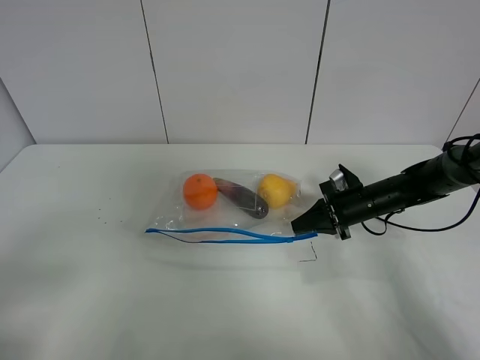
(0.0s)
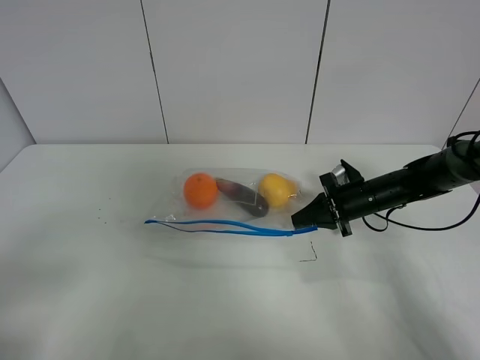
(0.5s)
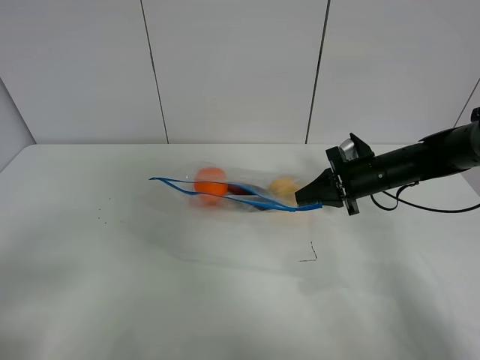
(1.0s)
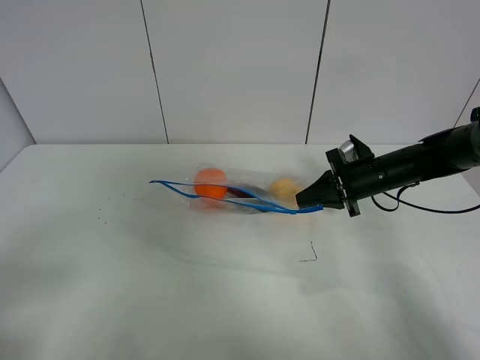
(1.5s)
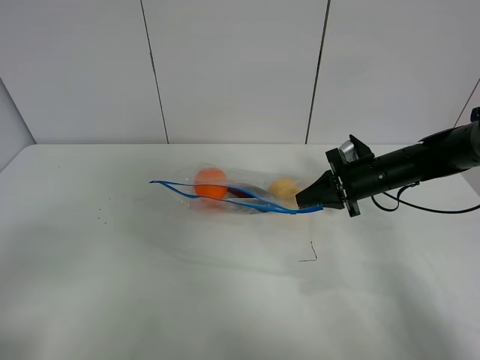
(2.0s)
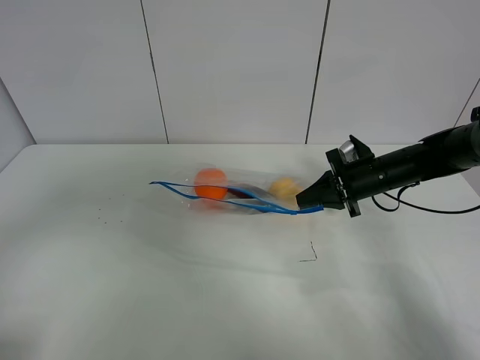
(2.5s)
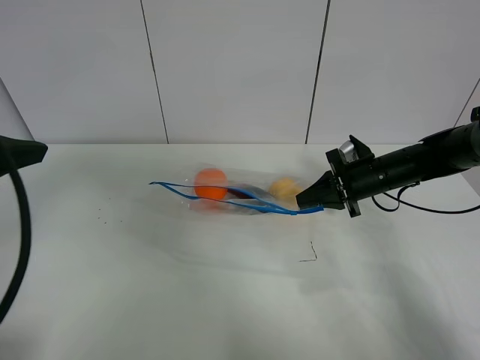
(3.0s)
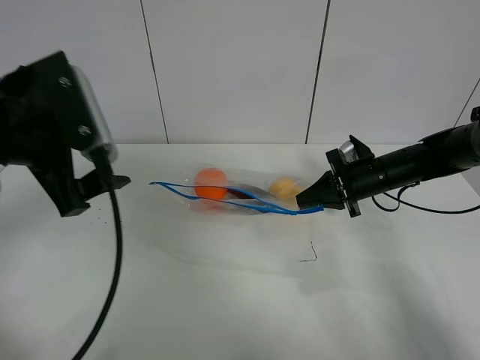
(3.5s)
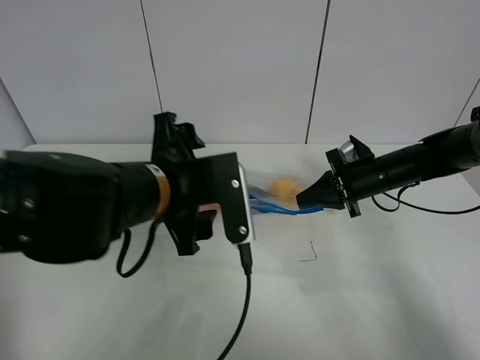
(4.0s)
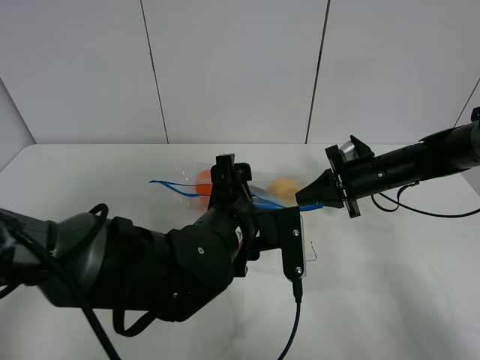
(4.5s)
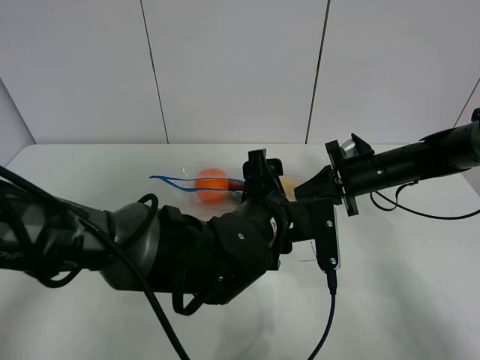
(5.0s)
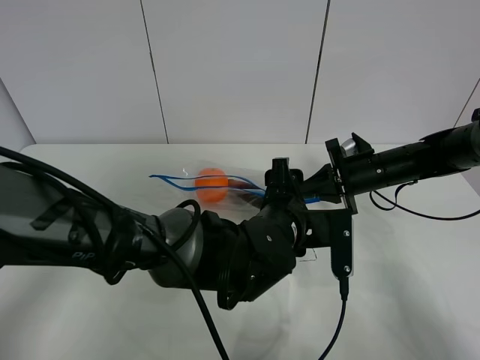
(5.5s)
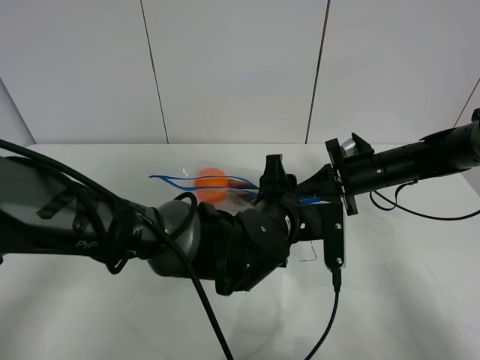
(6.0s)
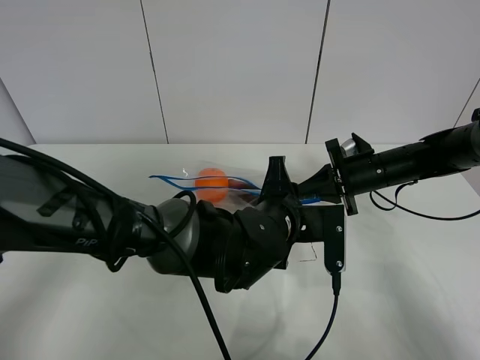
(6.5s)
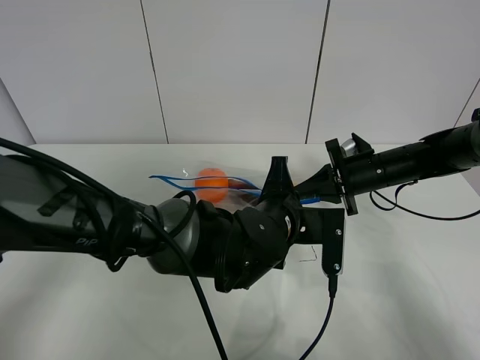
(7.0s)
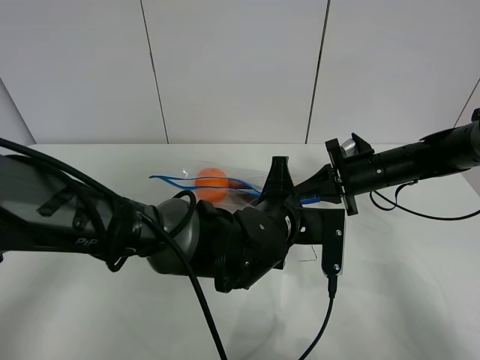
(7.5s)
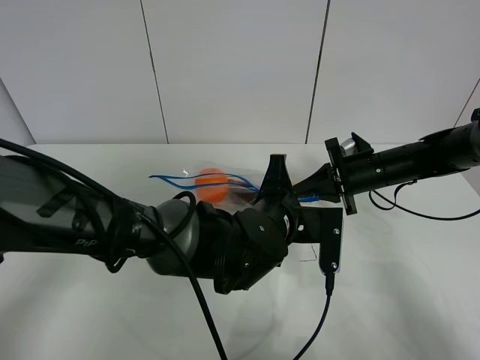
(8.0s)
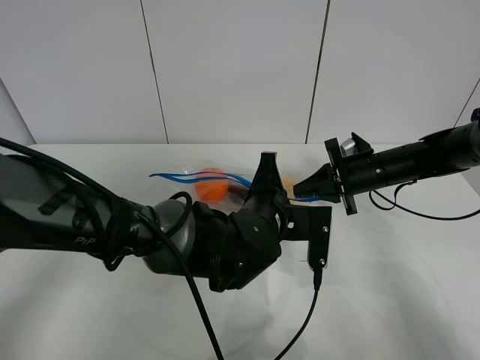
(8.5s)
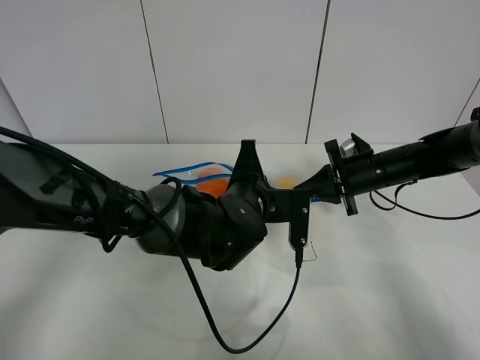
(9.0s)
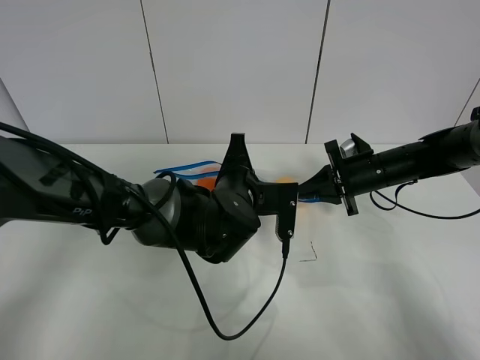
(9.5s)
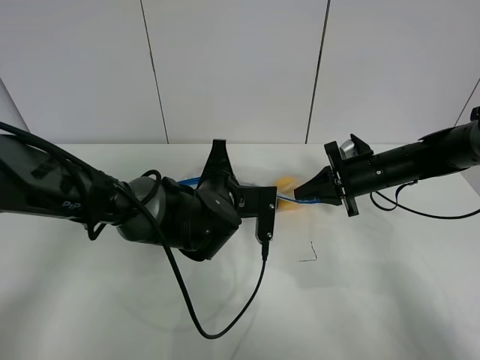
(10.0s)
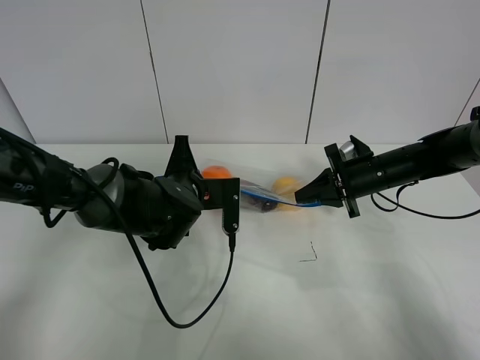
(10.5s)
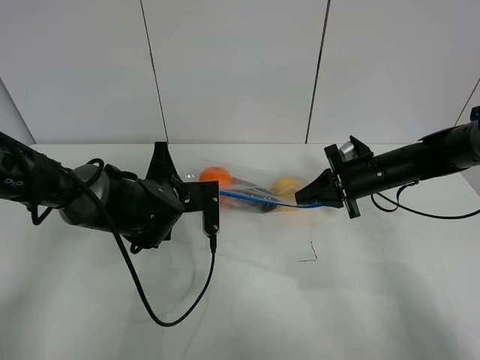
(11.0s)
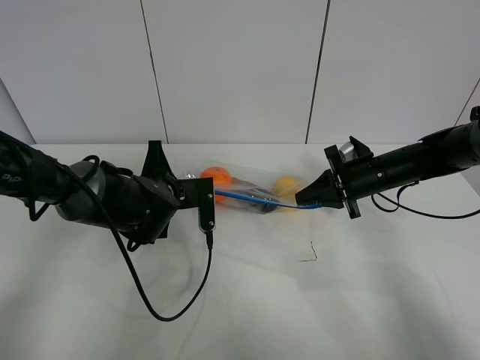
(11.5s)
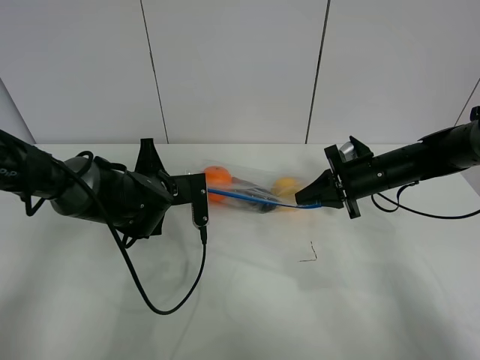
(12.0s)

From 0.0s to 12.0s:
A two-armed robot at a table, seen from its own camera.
Step, from 0.0s to 1.0s: Lift the fruit bag with your right gripper.
From 0.0s to 2.0s: The right gripper shifts approximately 5 cm upward.
From 2.0s to 4.0s: The left gripper goes some 30 cm to the right and forward.
From 4.0s to 6.0s: The left gripper shifts about 15 cm to the right and downward, and closes its fingers.
From 6.0s to 8.0s: The left gripper closes up.
From 8.0s to 10.0s: The left gripper heads to the left and forward, covering about 10 cm.
From 10.0s to 12.0s: The left gripper goes approximately 10 cm to the left.

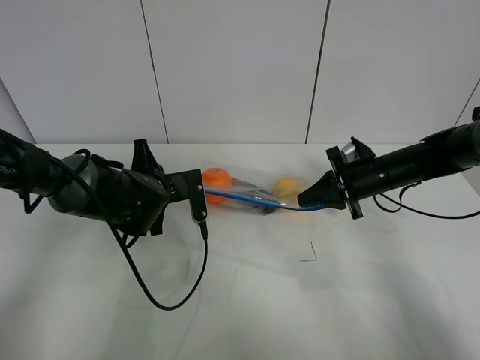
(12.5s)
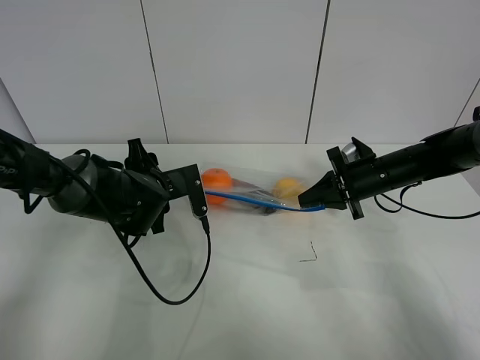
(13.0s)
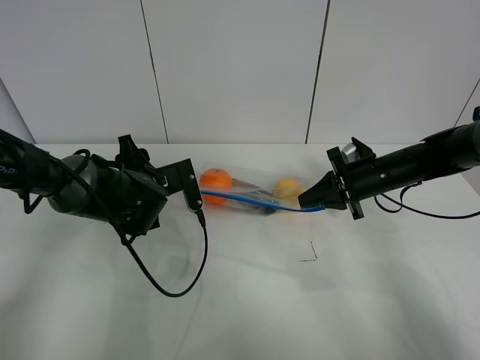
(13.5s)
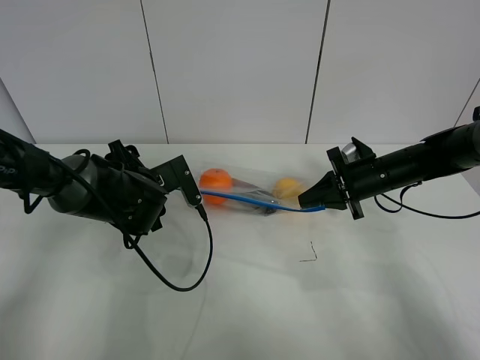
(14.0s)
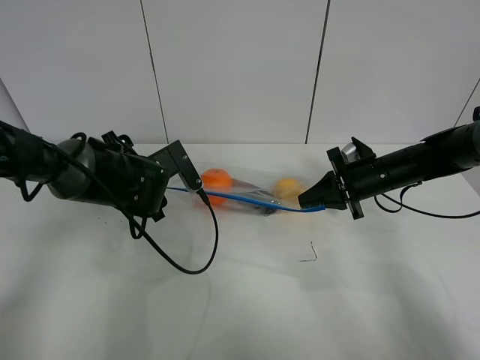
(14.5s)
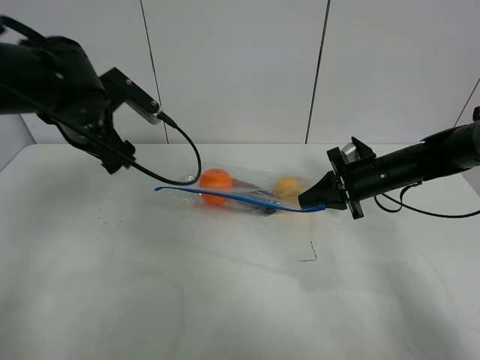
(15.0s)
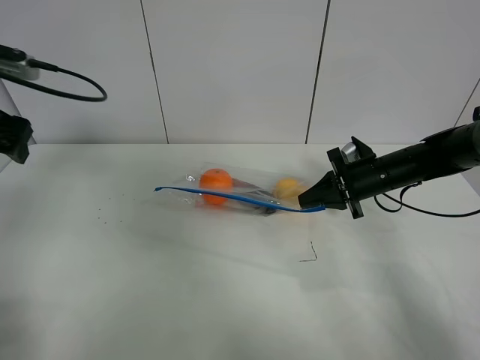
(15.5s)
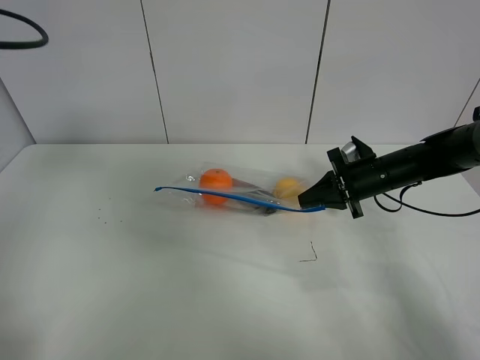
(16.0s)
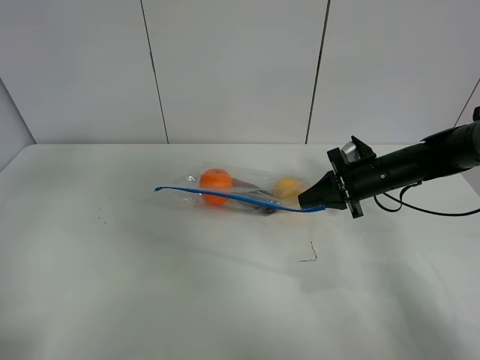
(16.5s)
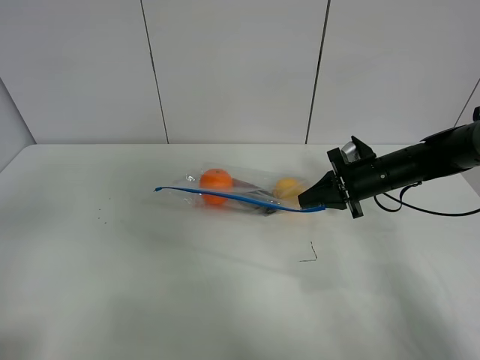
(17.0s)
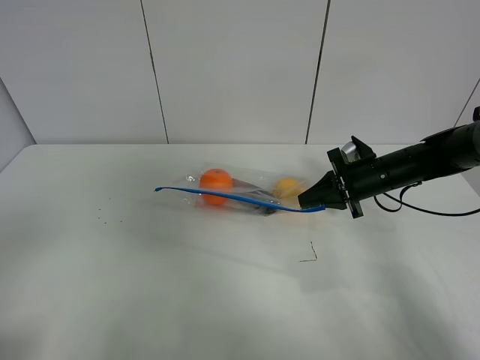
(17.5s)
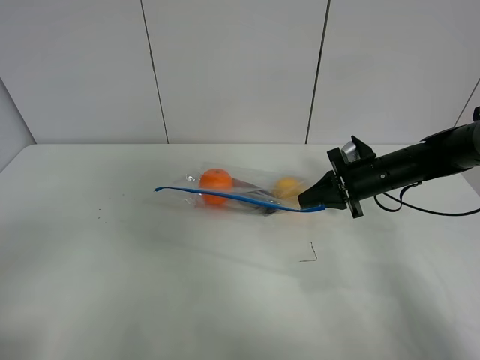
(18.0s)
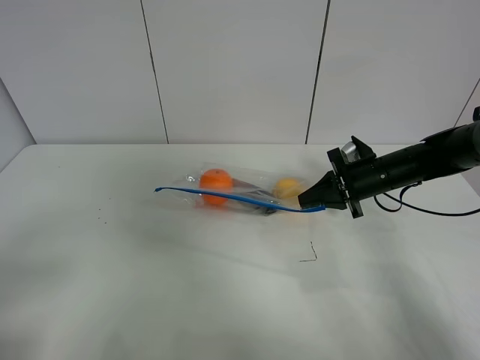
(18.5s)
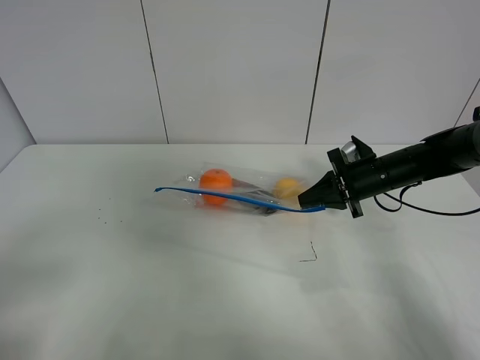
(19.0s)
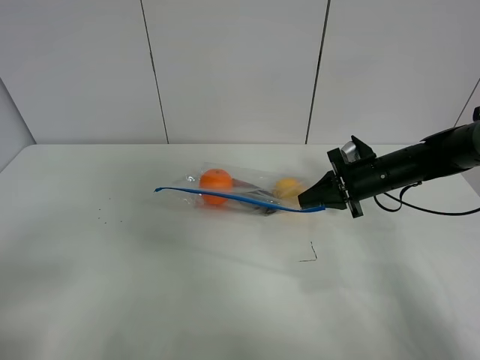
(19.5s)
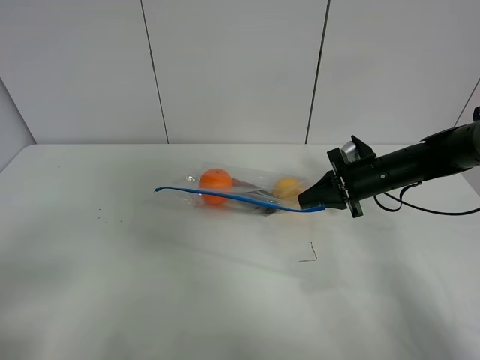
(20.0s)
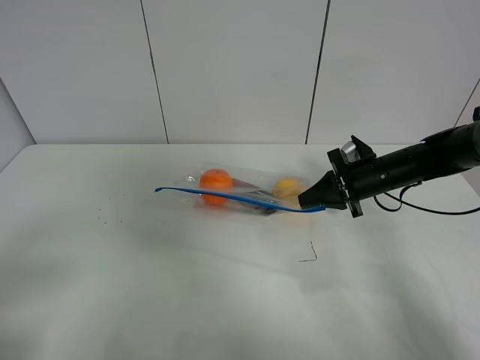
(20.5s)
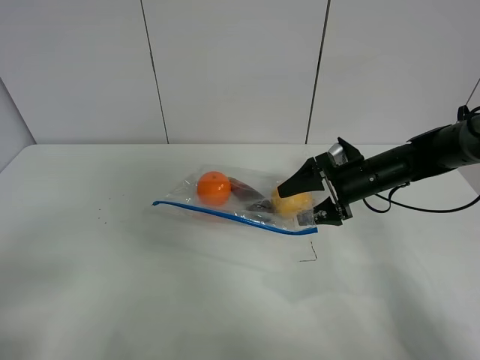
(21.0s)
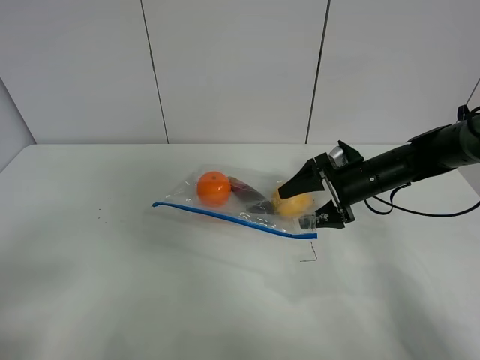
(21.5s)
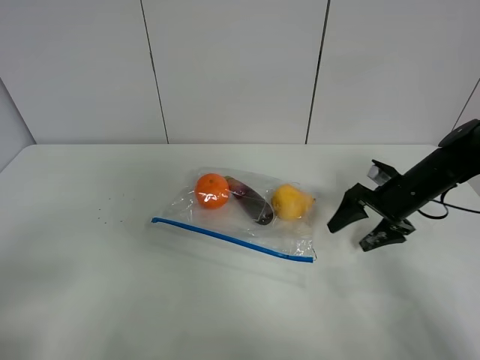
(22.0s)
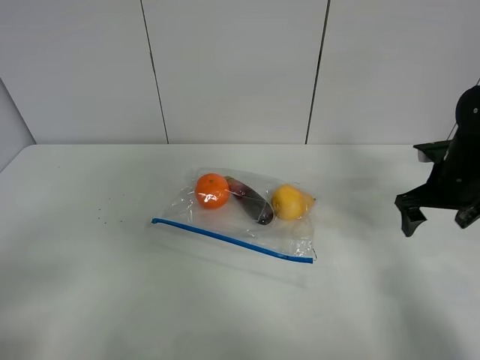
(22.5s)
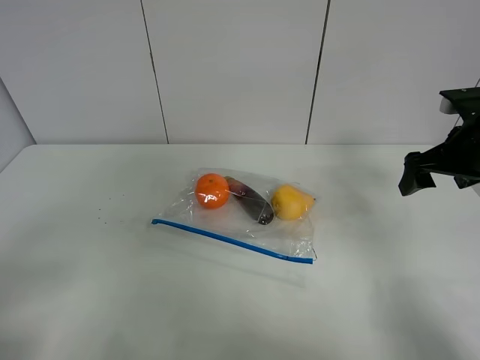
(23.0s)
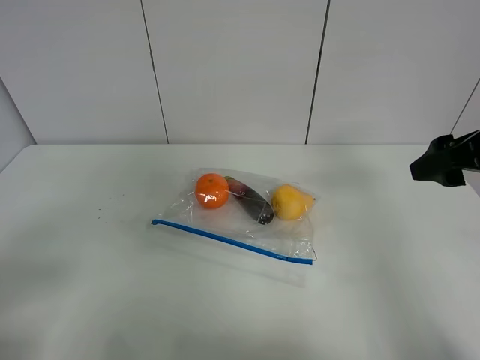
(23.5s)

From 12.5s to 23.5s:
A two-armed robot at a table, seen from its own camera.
From 12.5s to 14.5s: The left gripper opens.
From 14.5s to 16.0s: The left gripper travels upward, to the left and backward by some 35 cm.
From 16.0s to 18.0s: The left gripper heads backward, covering roughly 25 cm.
From 20.0s to 21.5s: The right gripper opens its fingers.
From 21.5s to 23.5s: The right gripper moves upward and backward, roughly 25 cm.

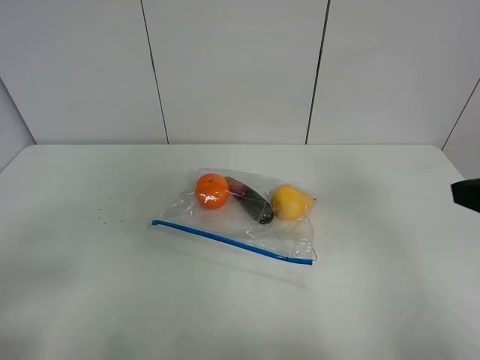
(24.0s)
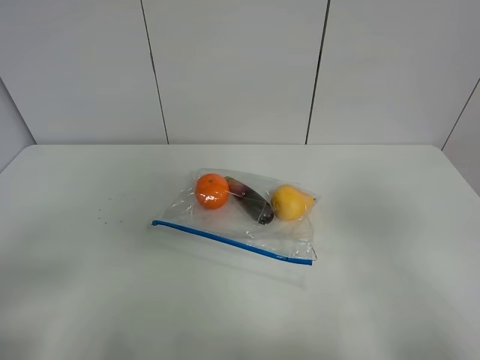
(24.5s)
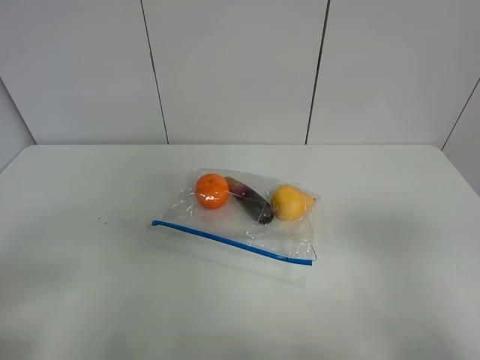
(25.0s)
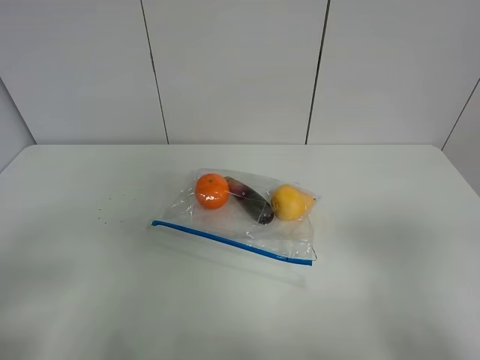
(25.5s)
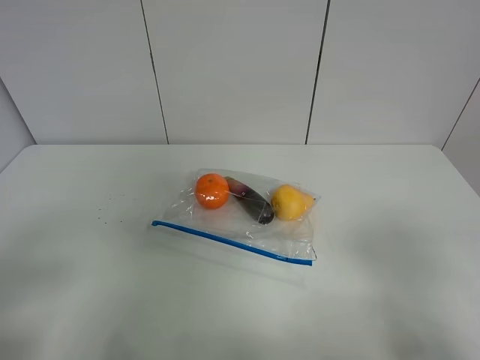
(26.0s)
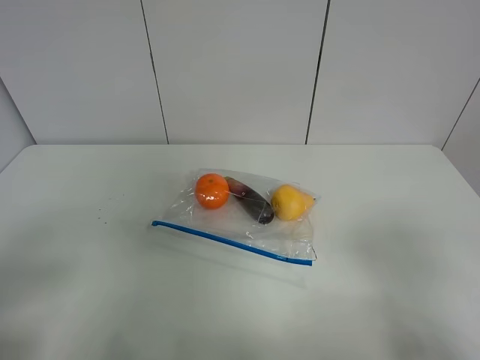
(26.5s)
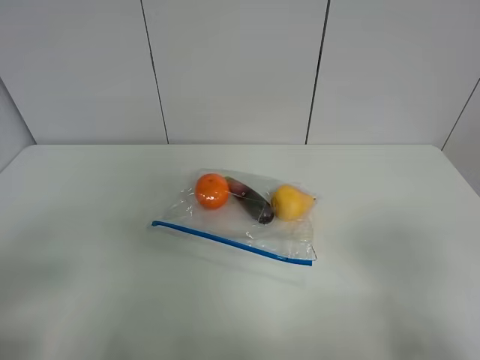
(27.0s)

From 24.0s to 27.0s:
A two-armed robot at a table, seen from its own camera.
From 24.0s to 25.5s: The right gripper is displaced backward by roughly 15 cm.
